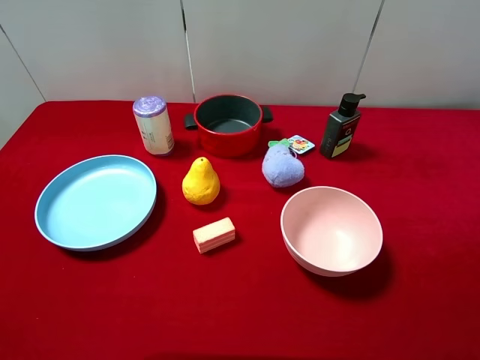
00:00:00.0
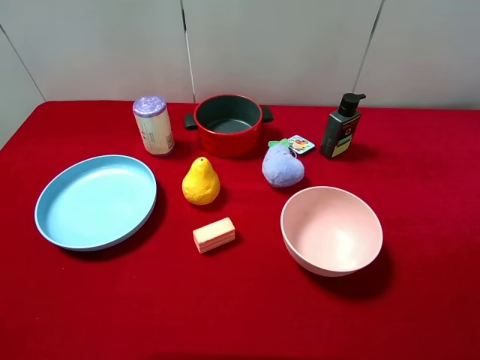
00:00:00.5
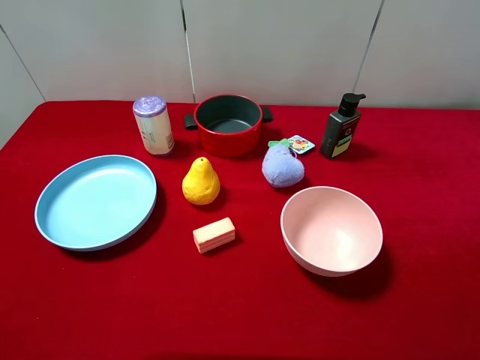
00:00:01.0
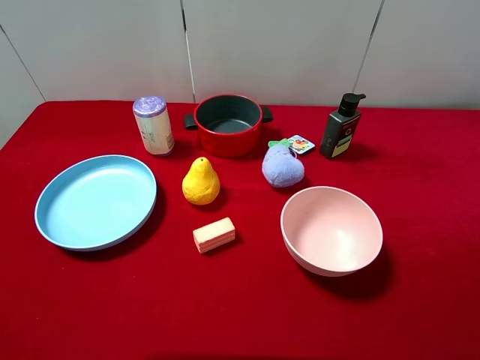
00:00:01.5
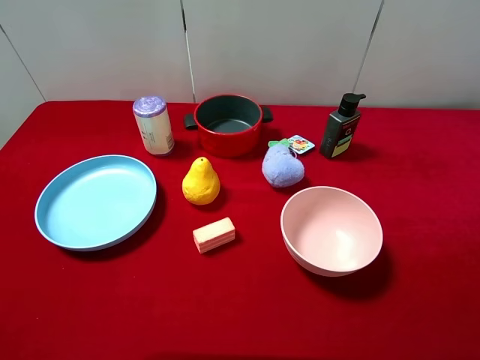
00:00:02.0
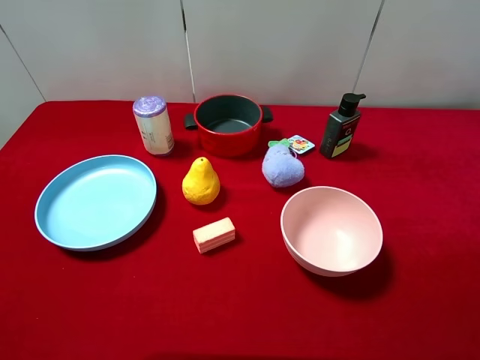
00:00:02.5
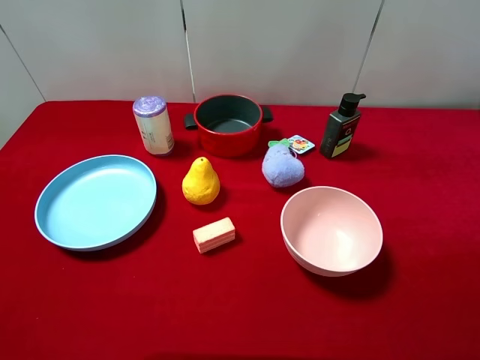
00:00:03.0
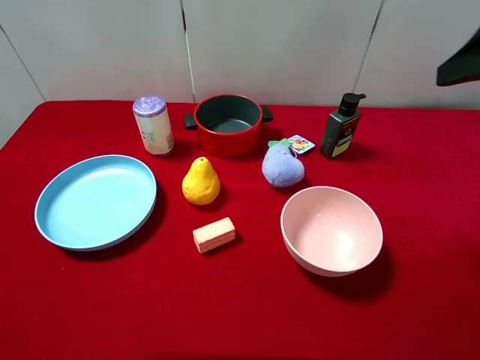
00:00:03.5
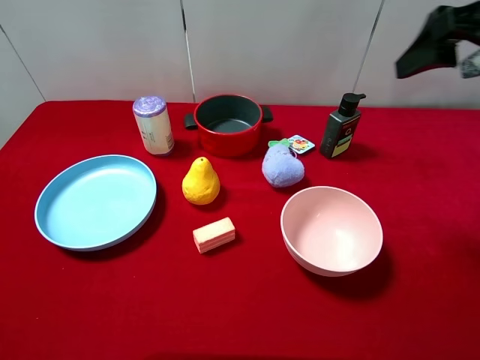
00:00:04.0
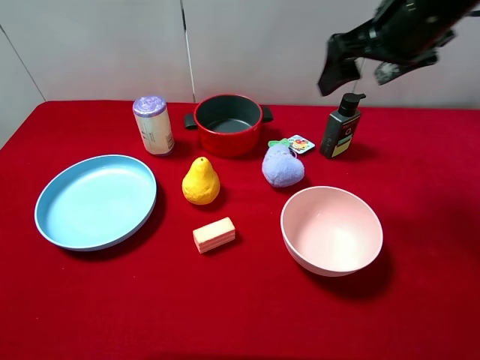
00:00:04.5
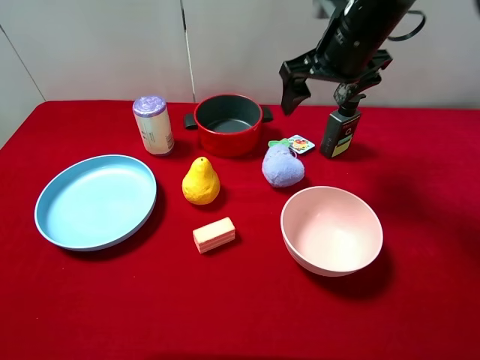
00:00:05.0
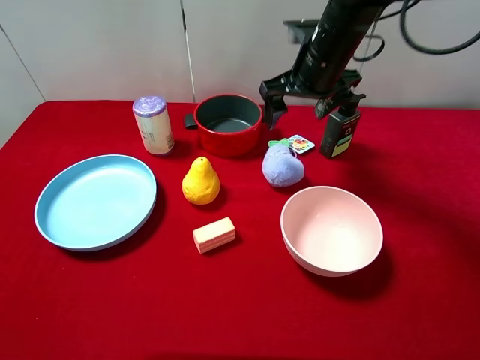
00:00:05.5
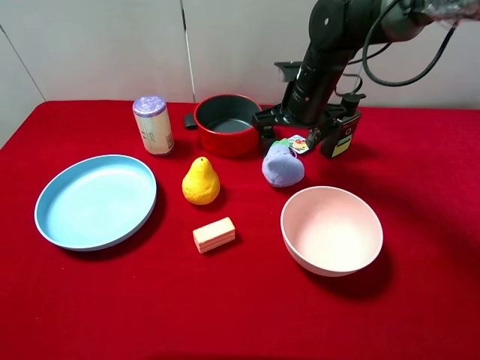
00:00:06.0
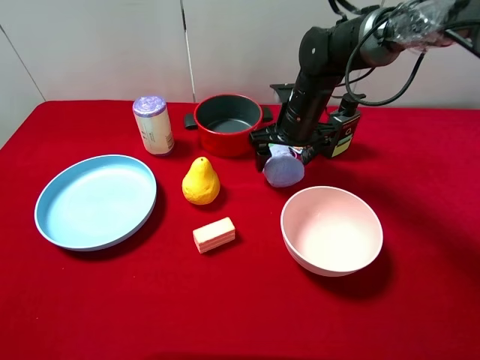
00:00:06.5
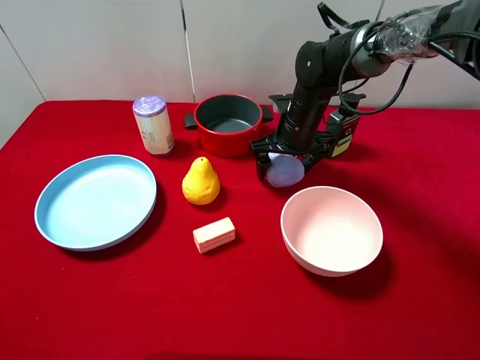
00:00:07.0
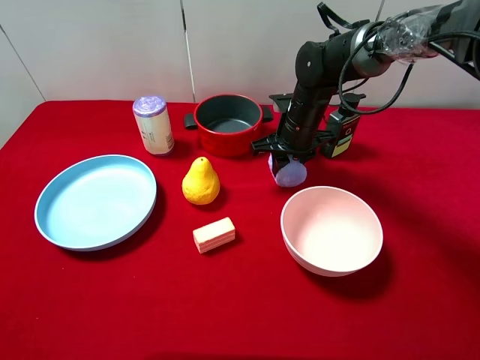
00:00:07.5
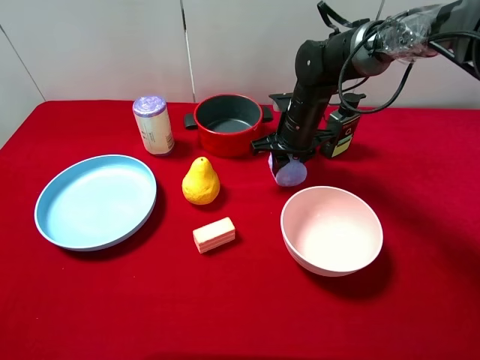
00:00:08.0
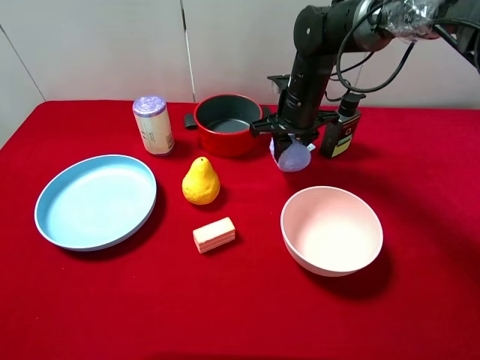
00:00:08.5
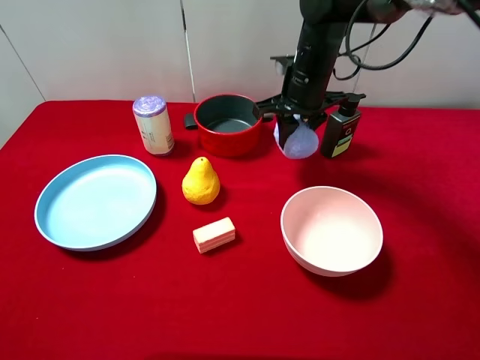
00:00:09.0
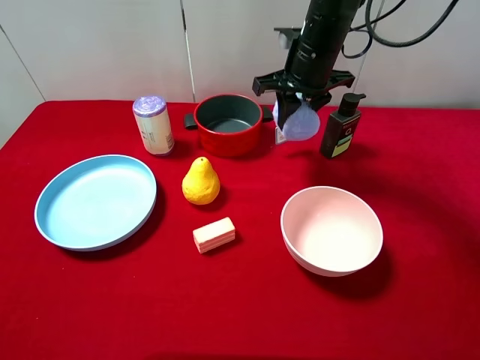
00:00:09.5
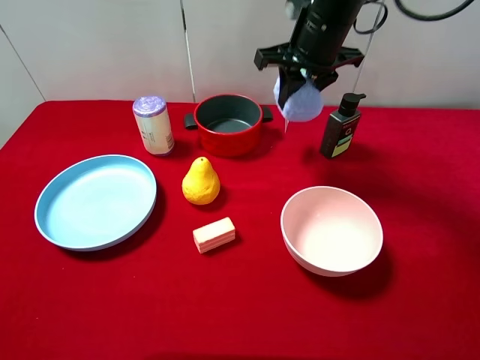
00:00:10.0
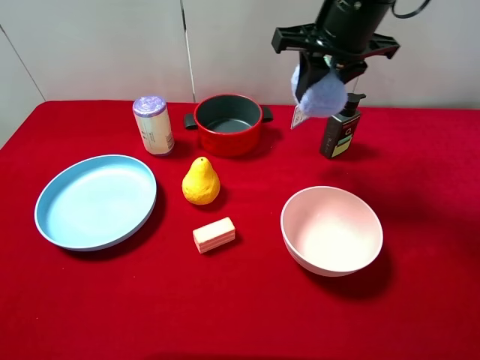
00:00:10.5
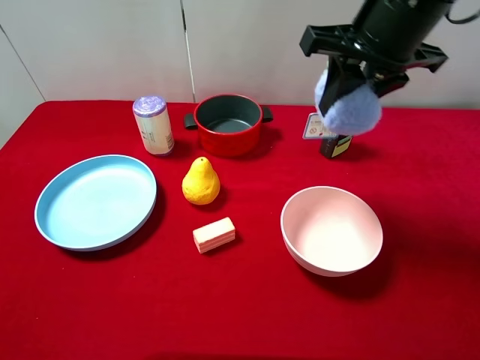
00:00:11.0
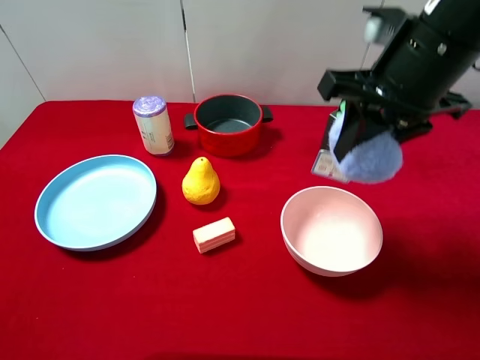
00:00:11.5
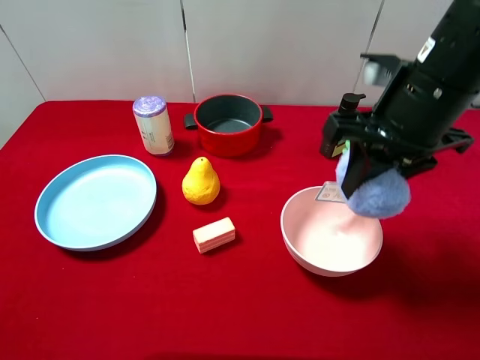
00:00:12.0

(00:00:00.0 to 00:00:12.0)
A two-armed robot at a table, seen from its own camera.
Task of the whole recording: pick up an item with a gripper and place it in a random container on the desktop.
00:00:02.0 - 00:00:04.0: The right gripper heads forward, covering some 25 cm.
00:00:04.0 - 00:00:06.0: The right gripper is displaced to the left, downward and forward by about 30 cm.
00:00:06.0 - 00:00:08.0: The right gripper heads downward, covering approximately 5 cm, and closes up.
00:00:08.0 - 00:00:10.0: The right gripper goes roughly 15 cm upward.
00:00:10.0 - 00:00:12.0: The right gripper travels backward and to the right by approximately 15 cm.

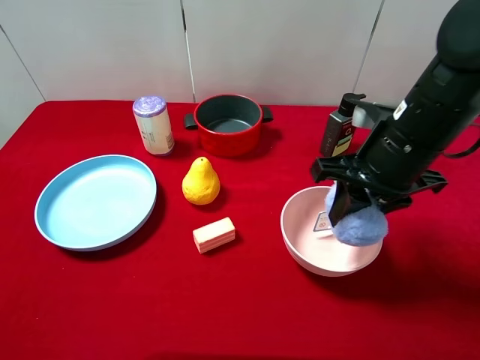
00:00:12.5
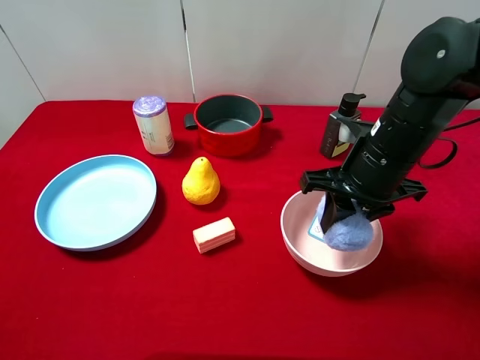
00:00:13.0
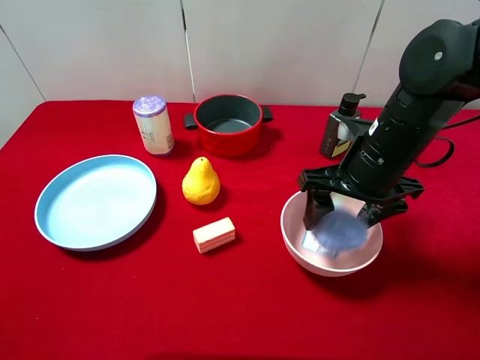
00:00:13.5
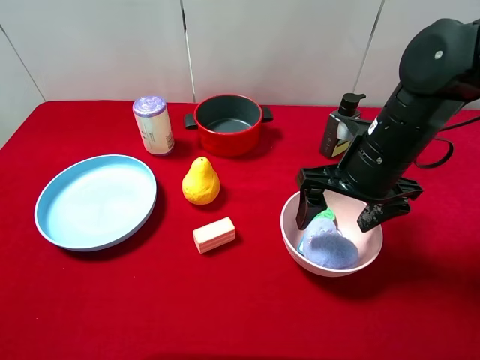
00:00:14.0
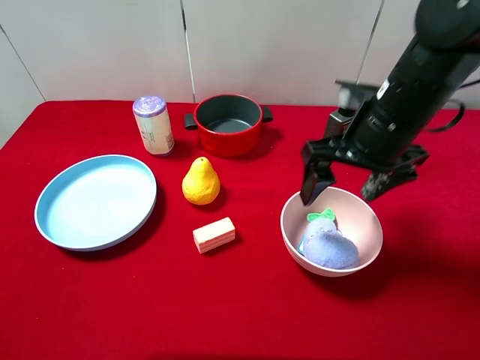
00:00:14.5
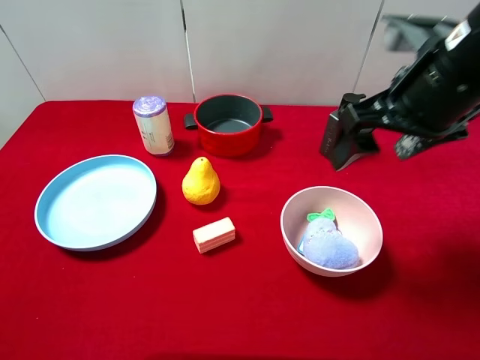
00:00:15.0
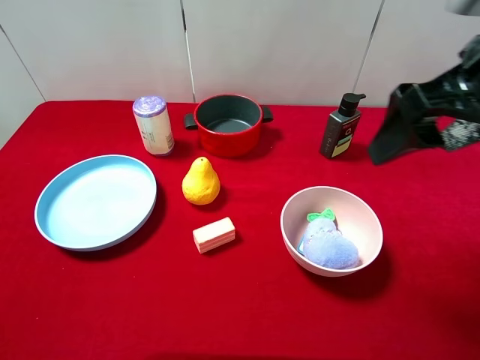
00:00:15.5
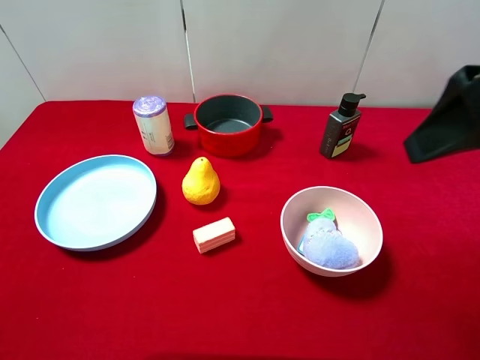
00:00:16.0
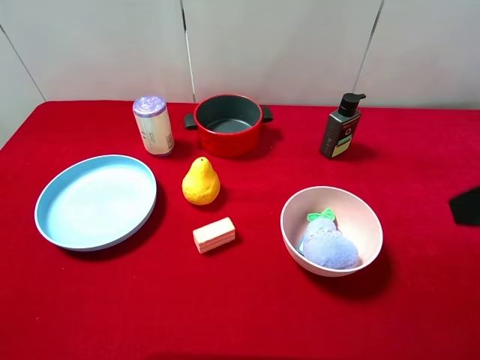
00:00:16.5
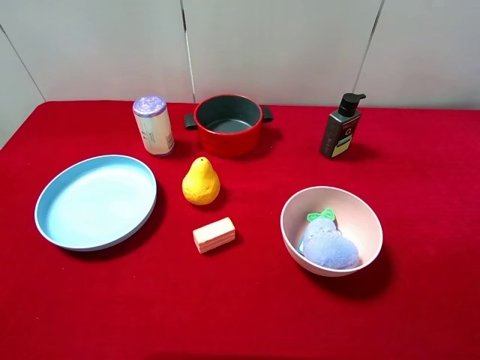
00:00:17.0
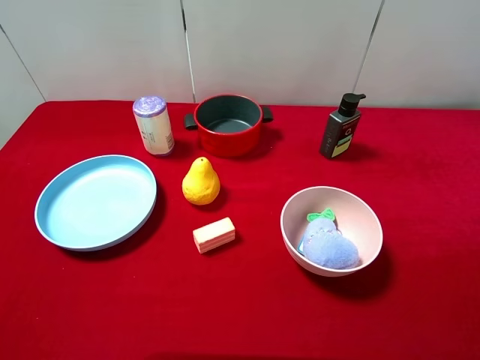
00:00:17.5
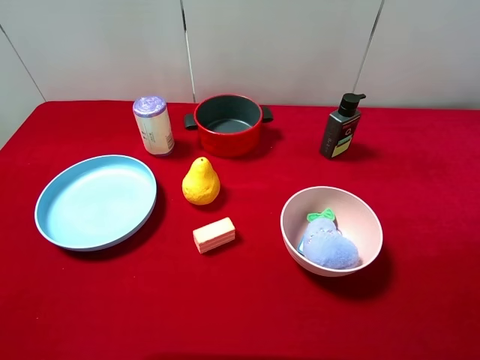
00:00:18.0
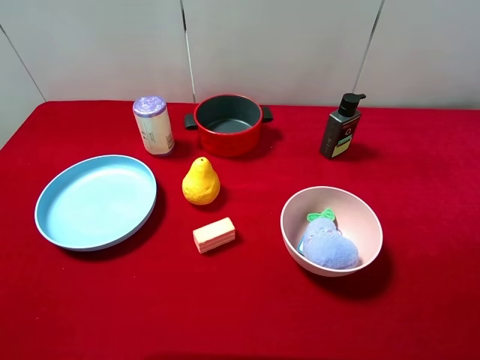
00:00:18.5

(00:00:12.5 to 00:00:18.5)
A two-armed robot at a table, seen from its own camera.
Task of the whole recording: pick up an item with a gripper and place it in a random container on the desktop.
00:00:12.5 - 00:00:14.5: The right gripper opens up.
00:00:14.5 - 00:00:16.5: The right gripper heads backward, upward and to the right, covering about 20 cm.
00:00:16.5 - 00:00:18.5: The right gripper moves backward, to the right and downward, some 15 cm.
